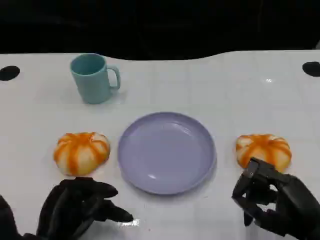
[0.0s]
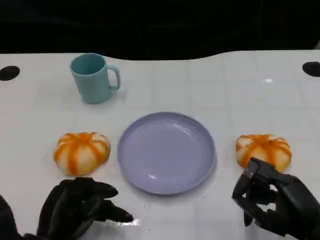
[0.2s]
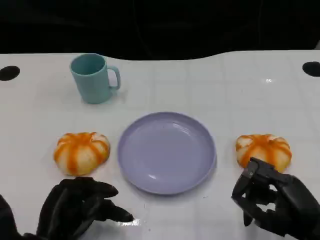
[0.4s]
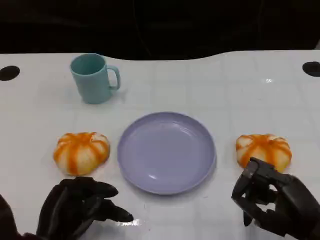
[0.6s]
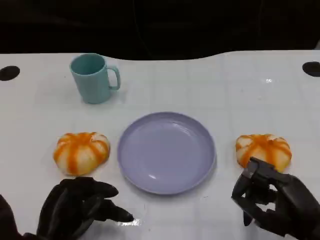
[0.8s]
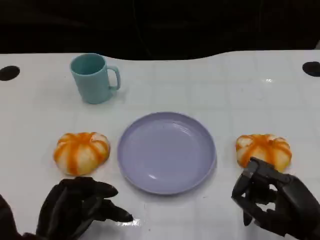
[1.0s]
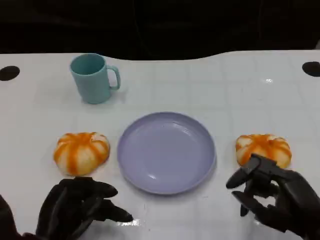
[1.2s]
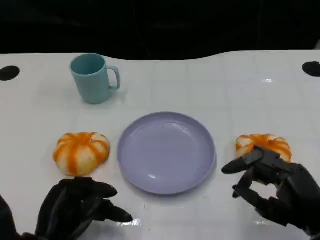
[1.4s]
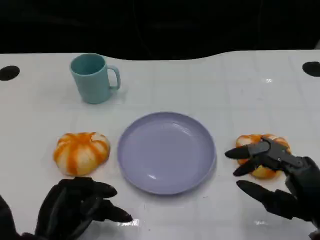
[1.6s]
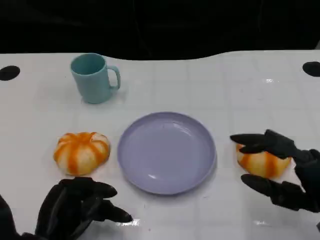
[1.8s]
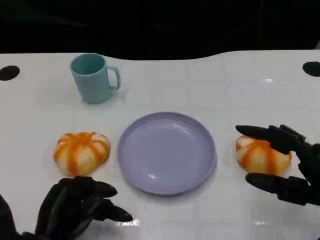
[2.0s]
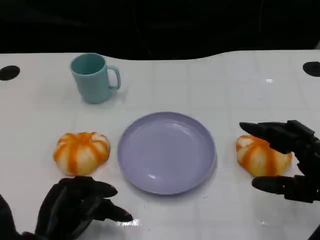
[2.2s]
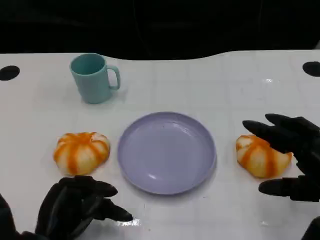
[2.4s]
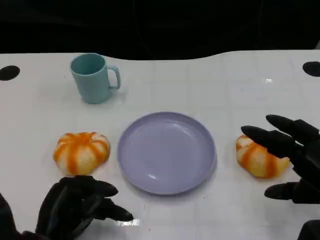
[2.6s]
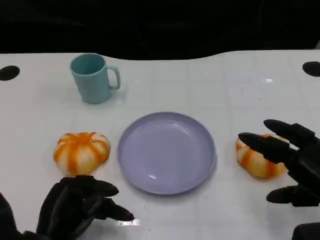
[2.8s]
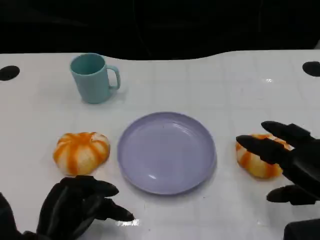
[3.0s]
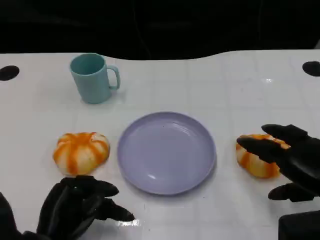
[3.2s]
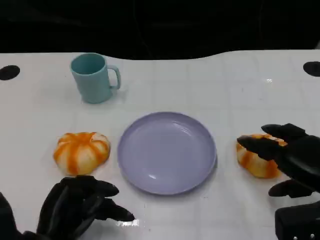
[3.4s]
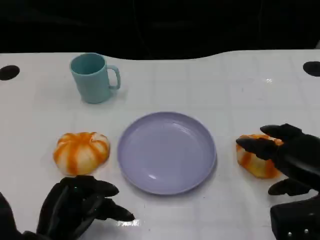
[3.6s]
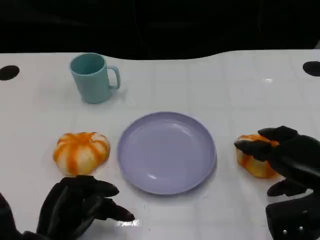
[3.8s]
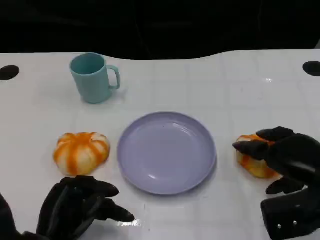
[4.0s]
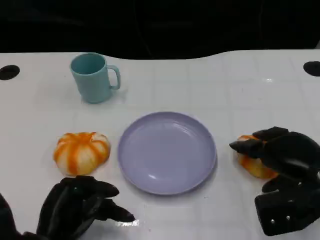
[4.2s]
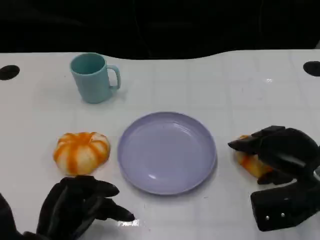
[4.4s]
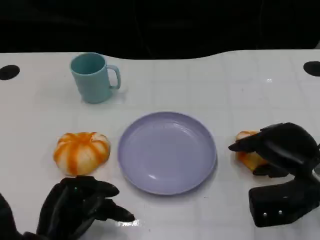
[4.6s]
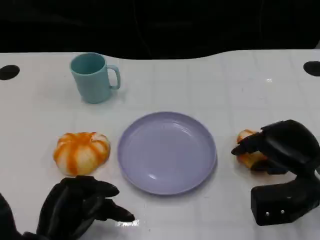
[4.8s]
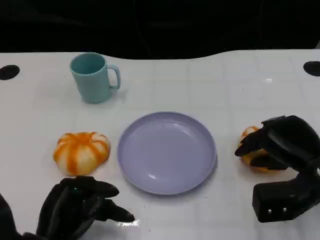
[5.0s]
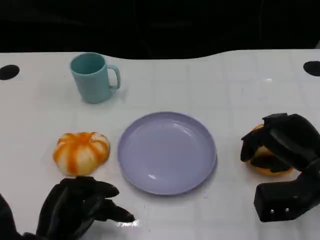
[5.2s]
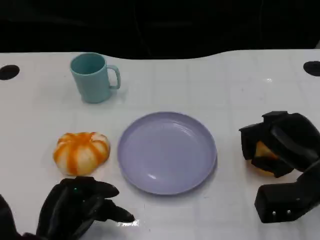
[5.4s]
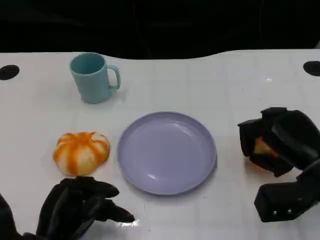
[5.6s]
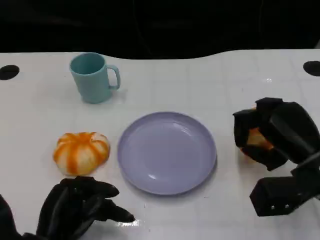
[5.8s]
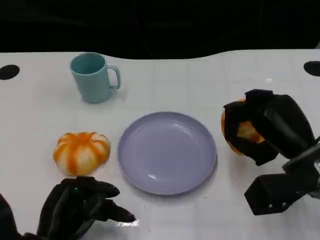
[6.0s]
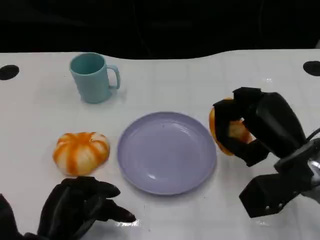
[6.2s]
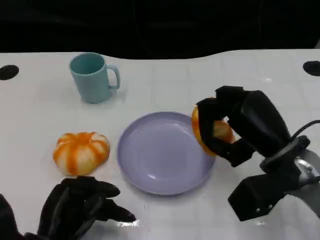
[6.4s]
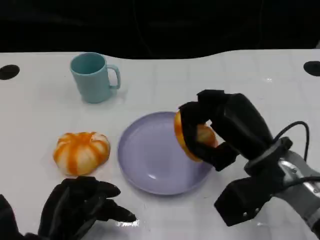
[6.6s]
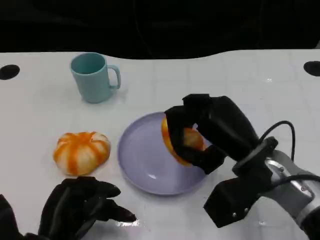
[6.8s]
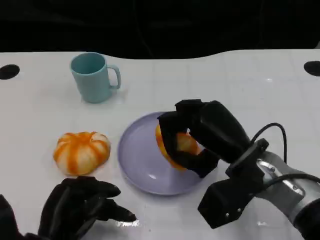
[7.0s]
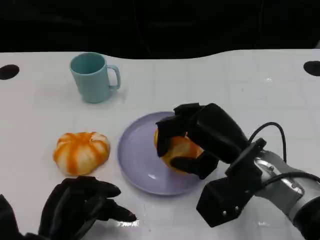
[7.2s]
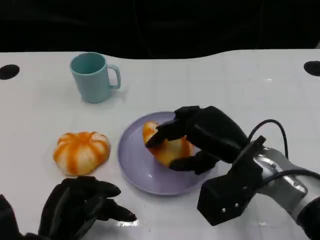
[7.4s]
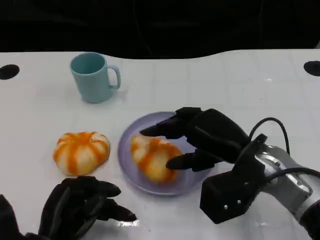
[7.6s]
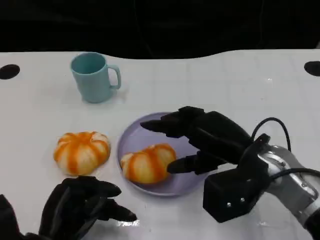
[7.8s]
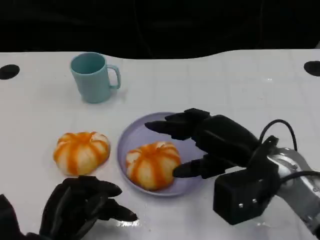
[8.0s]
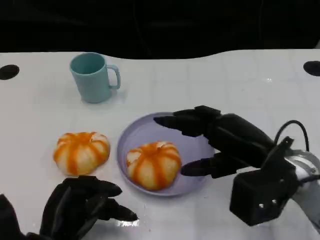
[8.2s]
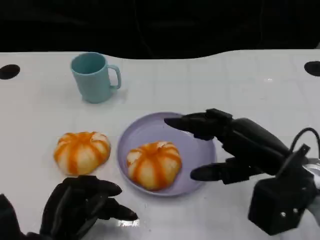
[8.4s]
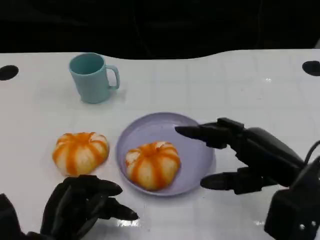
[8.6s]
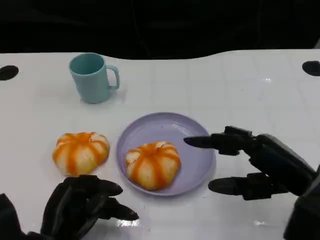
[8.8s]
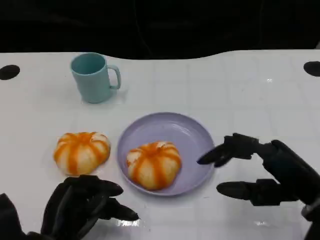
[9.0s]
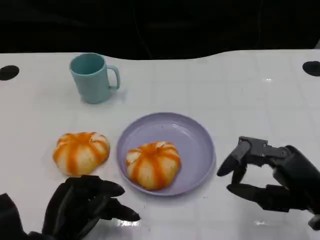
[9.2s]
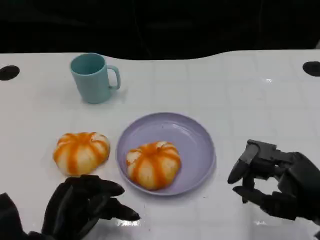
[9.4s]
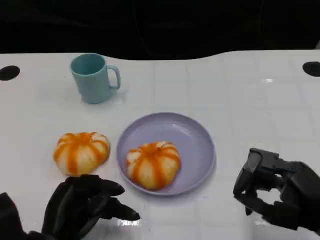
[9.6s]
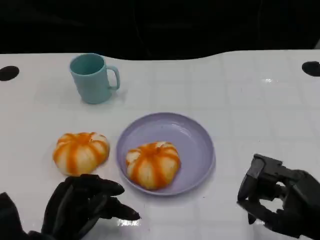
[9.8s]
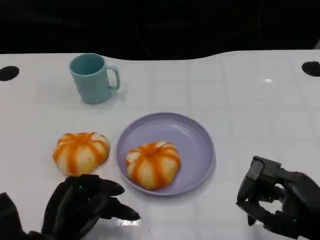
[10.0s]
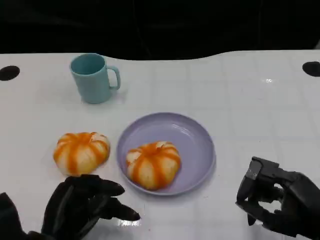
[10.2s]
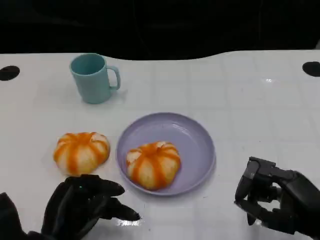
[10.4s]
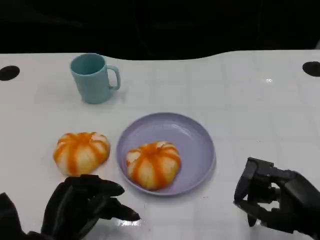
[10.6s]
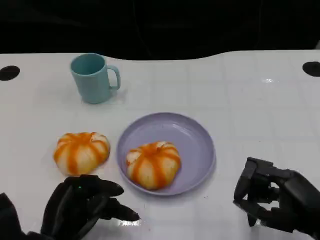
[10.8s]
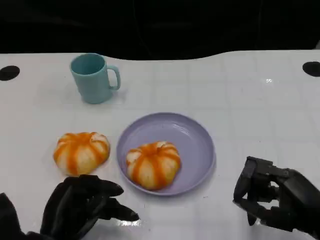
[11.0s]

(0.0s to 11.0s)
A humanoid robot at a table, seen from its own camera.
Task of the whole recording: Grasp the bread from the table and place it into the plate.
1.6s - 3.2s: The right hand changes place by approximately 5 cm.
3.2s - 4.8s: The right hand travels forward by about 5 cm.
4.8s - 6.2s: The right hand moves about 5 cm.
7.8s - 9.4s: The right hand shifts roughly 15 cm backward and to the right.
9.4s - 11.0s: The hands stay close to where they were, moving slightly.

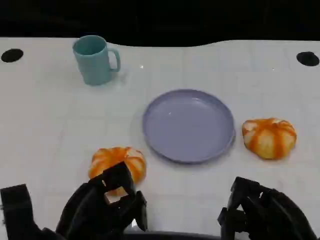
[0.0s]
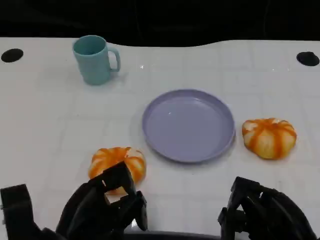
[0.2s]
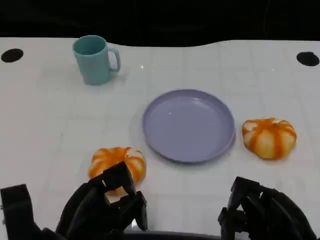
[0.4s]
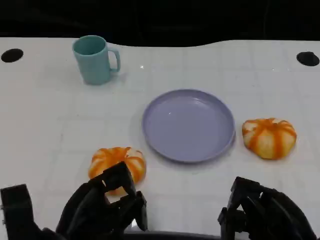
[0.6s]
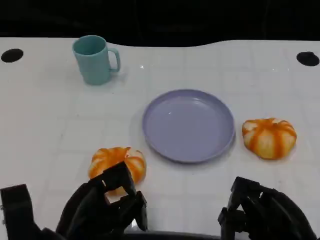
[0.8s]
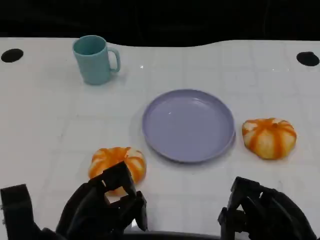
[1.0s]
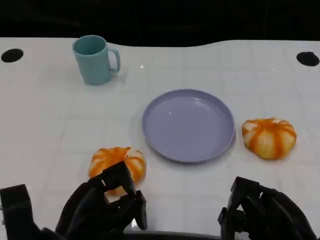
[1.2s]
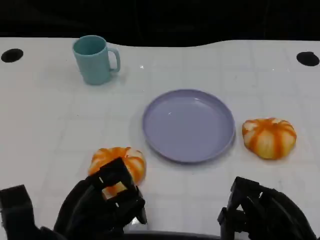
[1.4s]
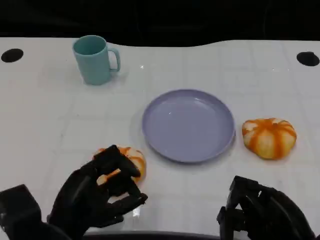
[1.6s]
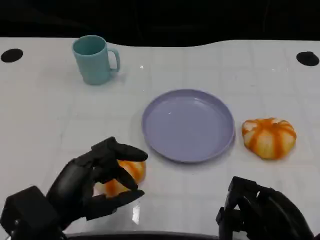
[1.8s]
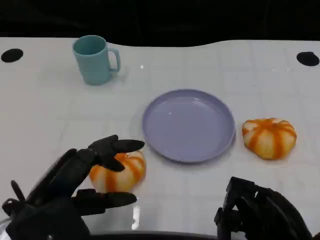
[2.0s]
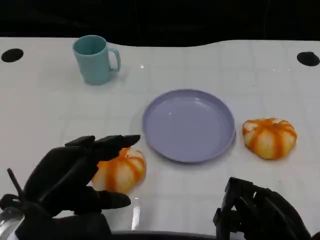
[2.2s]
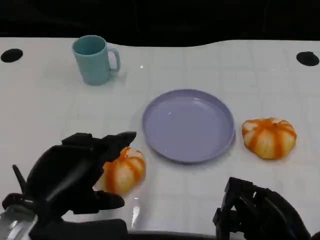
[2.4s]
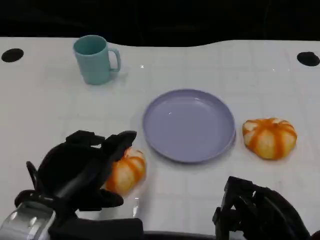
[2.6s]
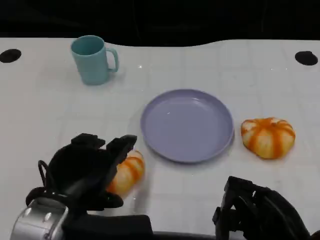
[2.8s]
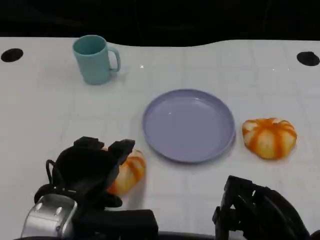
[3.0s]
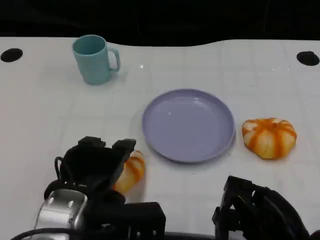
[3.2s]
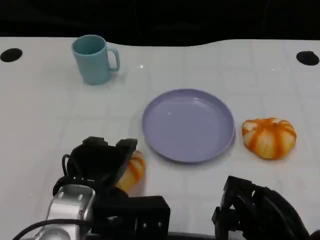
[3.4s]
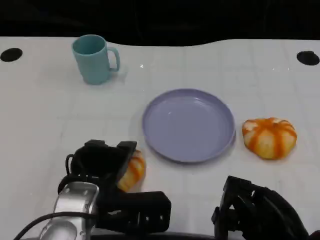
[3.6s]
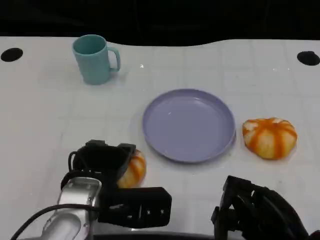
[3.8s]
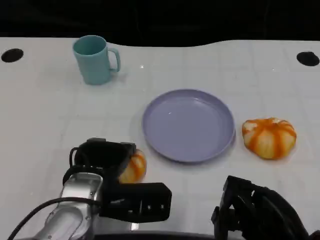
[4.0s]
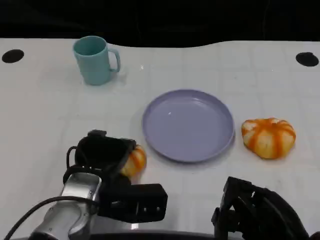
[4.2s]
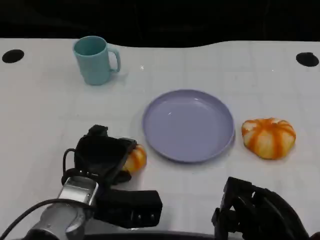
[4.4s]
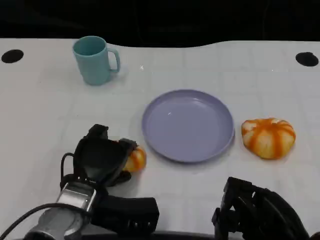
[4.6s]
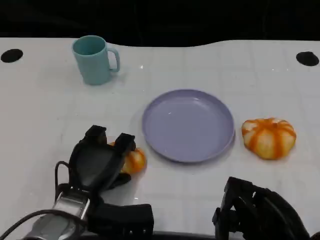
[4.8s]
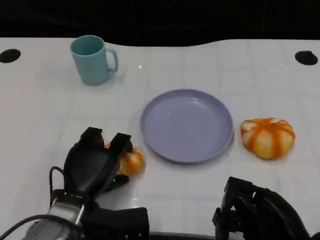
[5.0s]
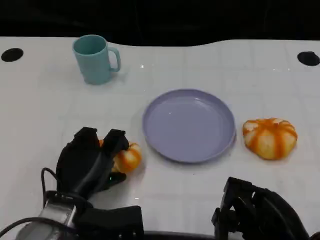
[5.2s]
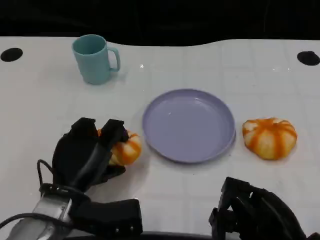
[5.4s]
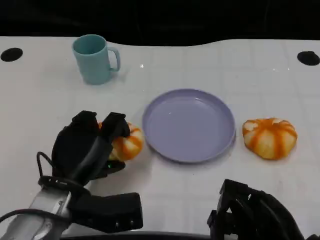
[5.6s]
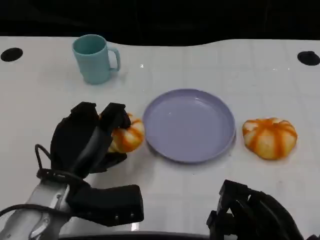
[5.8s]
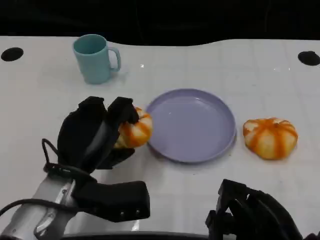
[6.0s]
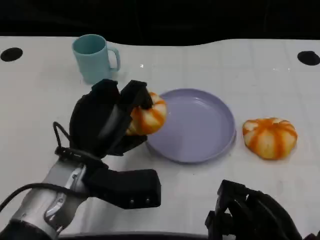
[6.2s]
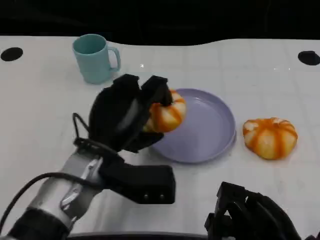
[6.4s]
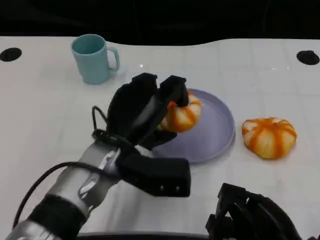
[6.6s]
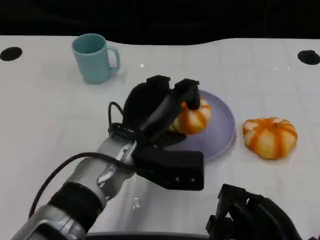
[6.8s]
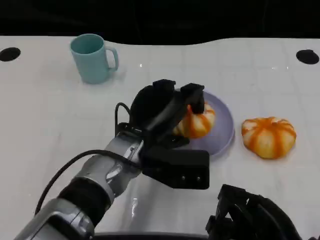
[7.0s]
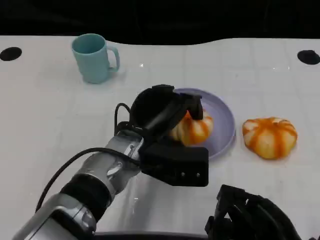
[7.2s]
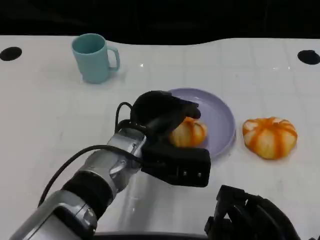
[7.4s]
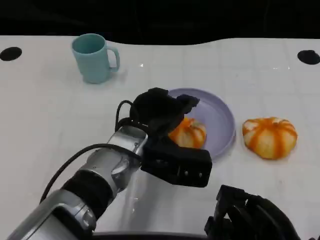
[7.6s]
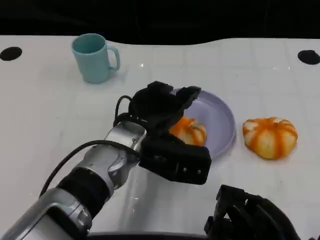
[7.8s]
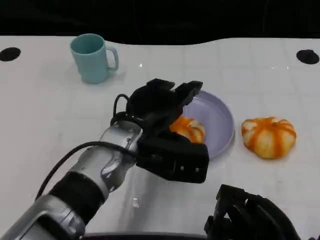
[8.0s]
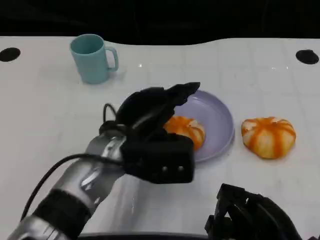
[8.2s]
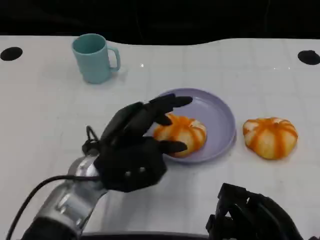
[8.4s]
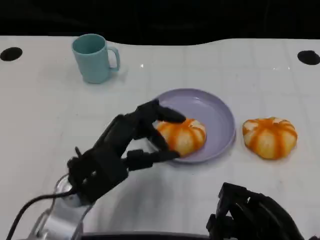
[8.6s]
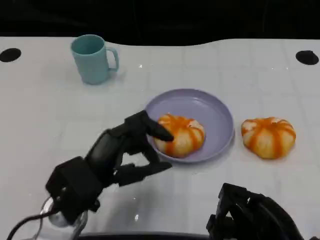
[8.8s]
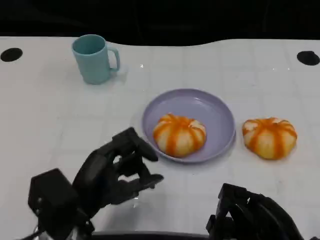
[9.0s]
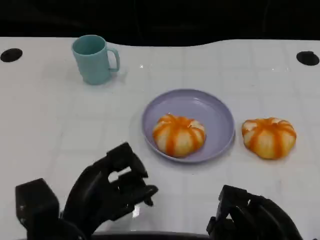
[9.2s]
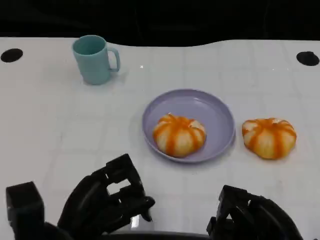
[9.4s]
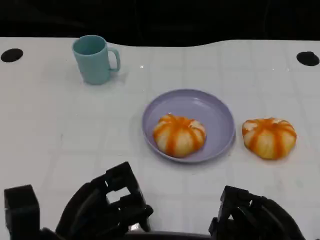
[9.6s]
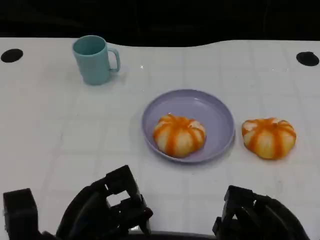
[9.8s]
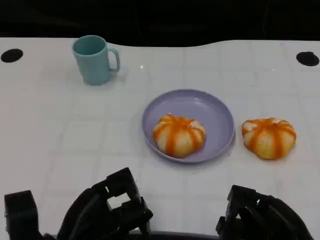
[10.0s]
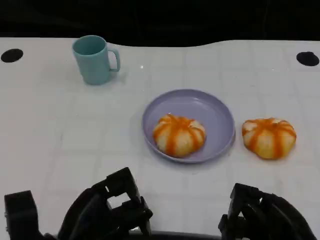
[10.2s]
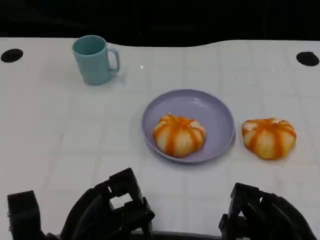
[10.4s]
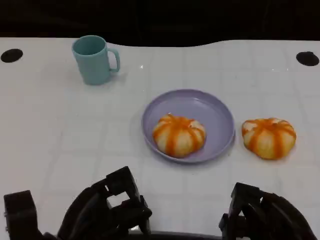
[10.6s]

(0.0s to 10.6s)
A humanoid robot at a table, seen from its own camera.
Task of the whole recording: Grasp the bread from the table and place it into the plate.
1.6s - 3.0s: The left hand changes place by roughly 5 cm.
3.0s - 4.6s: The left hand shifts roughly 10 cm downward and forward.
4.6s - 6.0s: The left hand goes about 5 cm upward.
6.0s - 7.6s: The left hand shifts about 10 cm to the right.
7.6s - 9.0s: The left hand moves to the left and backward, approximately 15 cm.

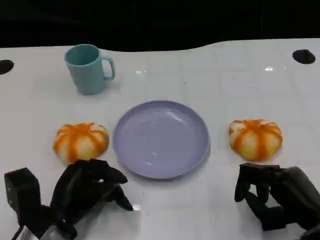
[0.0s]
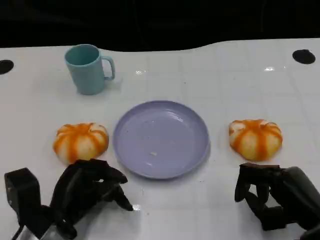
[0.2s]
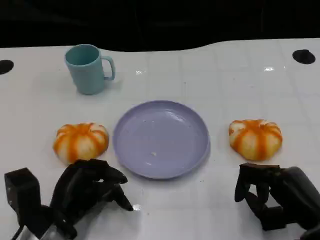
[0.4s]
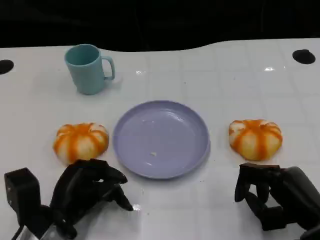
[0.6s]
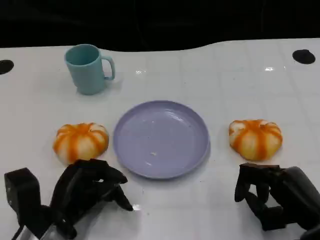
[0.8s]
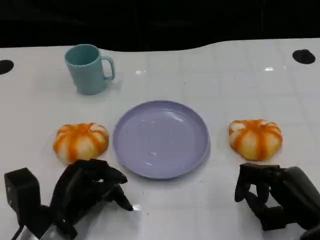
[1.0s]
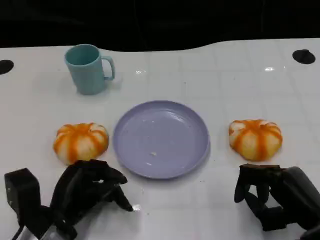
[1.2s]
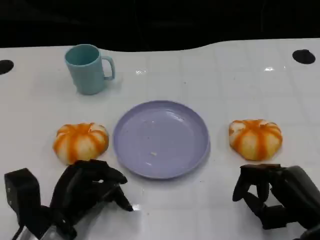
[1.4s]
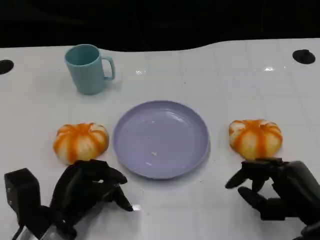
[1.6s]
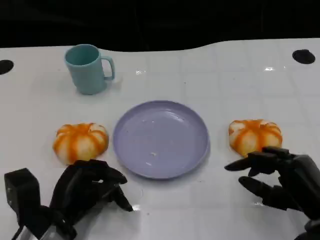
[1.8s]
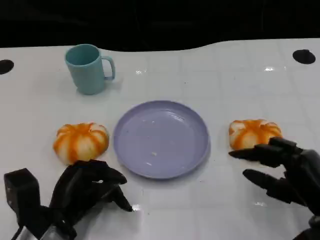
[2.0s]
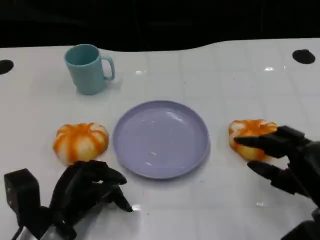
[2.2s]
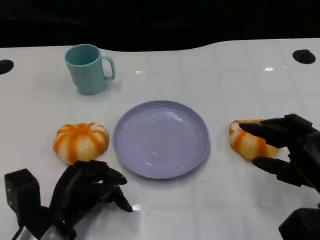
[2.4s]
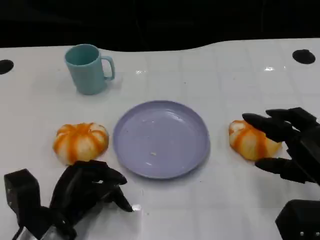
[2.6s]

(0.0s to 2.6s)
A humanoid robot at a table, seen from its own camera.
Task of the whole recording: Grasp the bread from the table and place it into the plate.
0.0s - 1.2s: Both hands stay put.
1.2s - 2.6s: The right hand goes approximately 5 cm upward.
